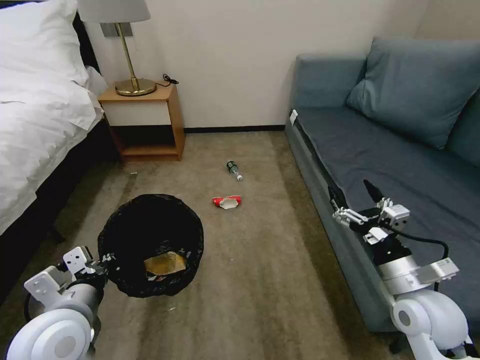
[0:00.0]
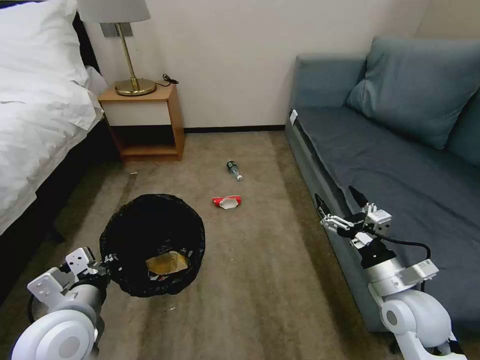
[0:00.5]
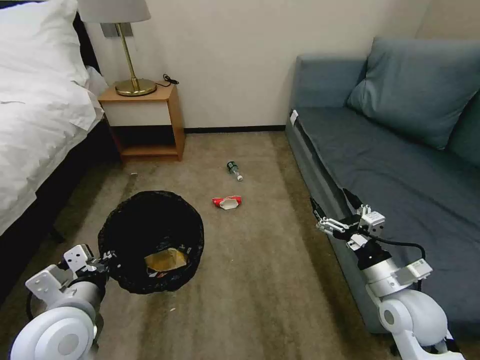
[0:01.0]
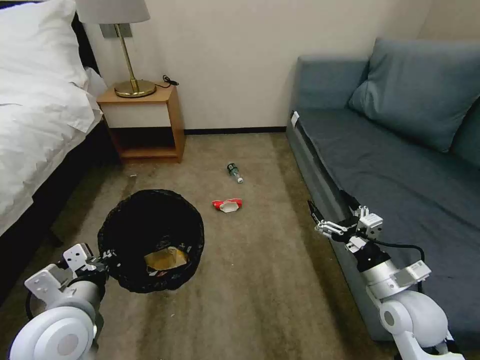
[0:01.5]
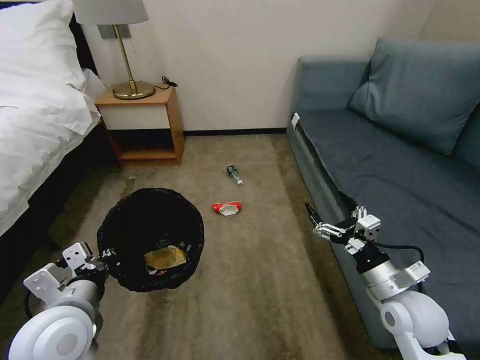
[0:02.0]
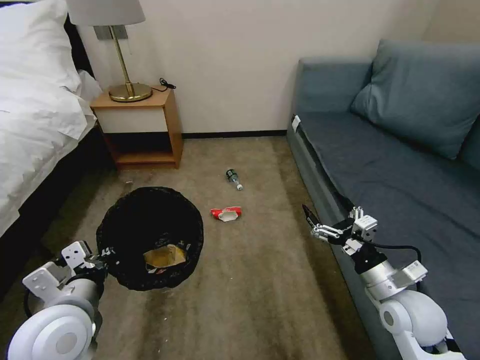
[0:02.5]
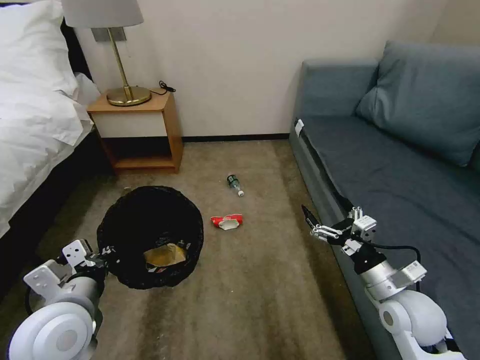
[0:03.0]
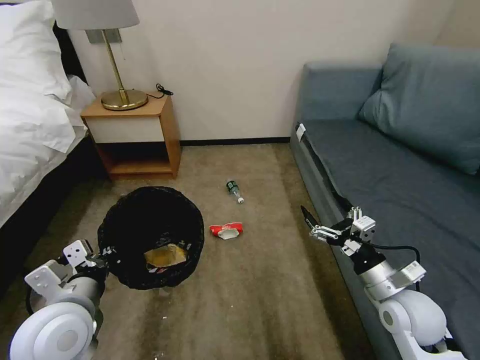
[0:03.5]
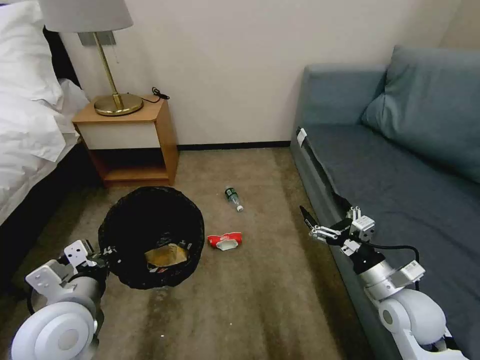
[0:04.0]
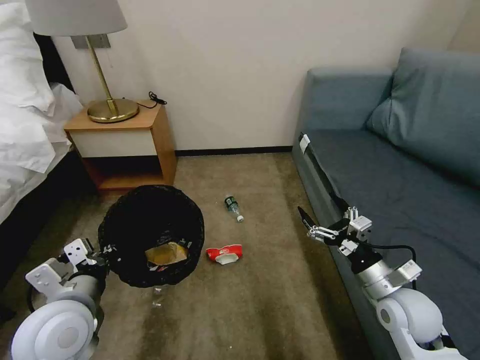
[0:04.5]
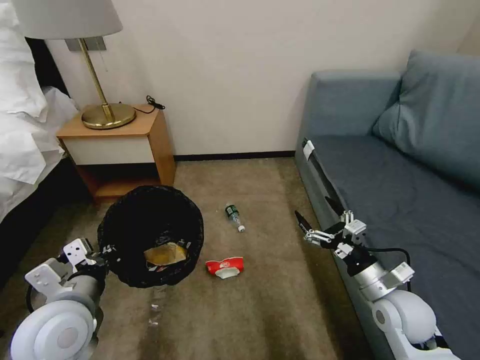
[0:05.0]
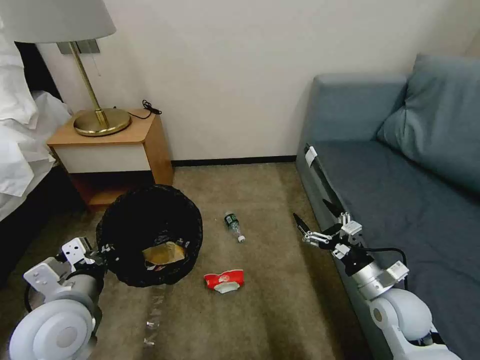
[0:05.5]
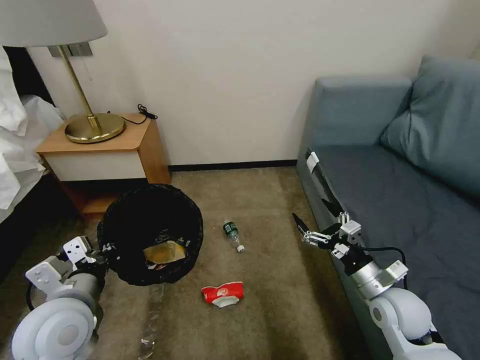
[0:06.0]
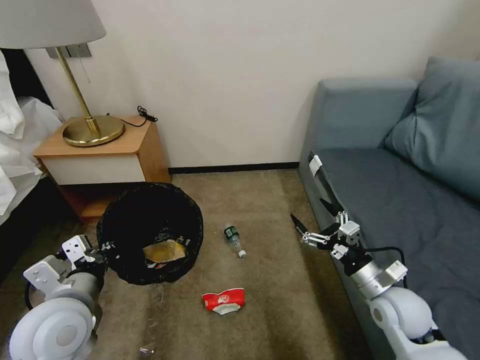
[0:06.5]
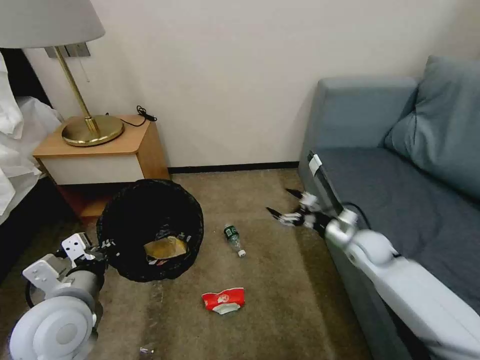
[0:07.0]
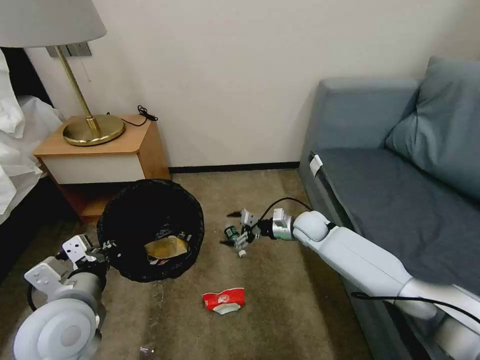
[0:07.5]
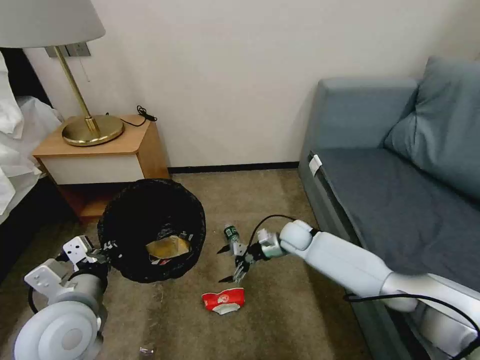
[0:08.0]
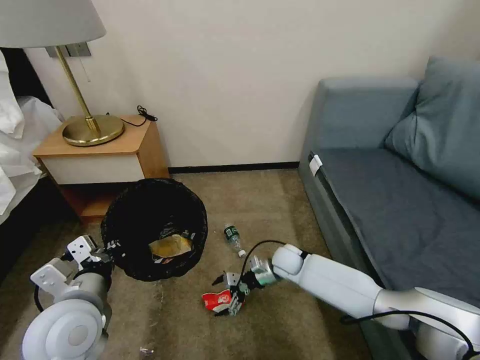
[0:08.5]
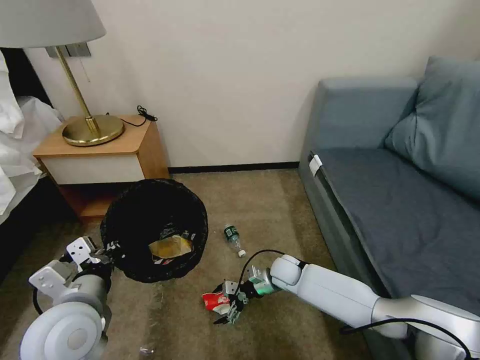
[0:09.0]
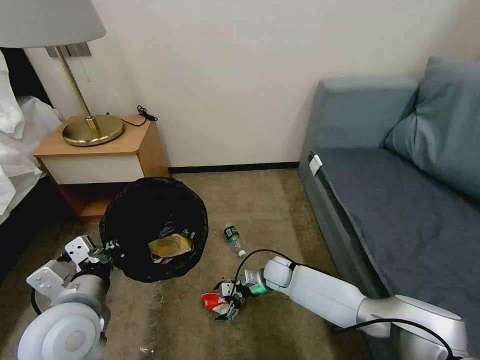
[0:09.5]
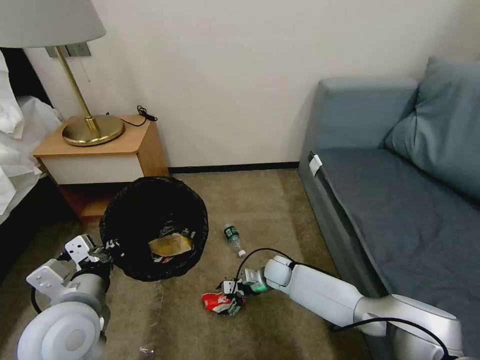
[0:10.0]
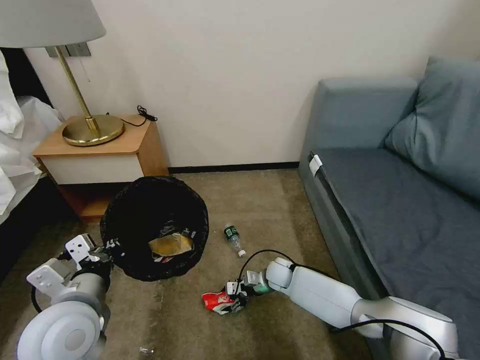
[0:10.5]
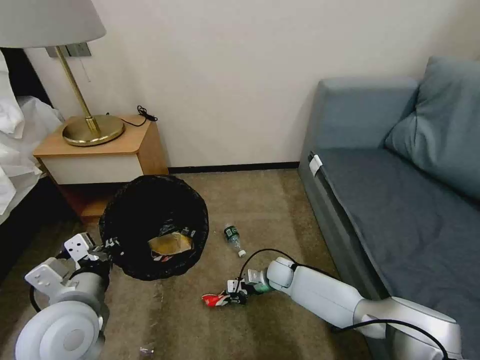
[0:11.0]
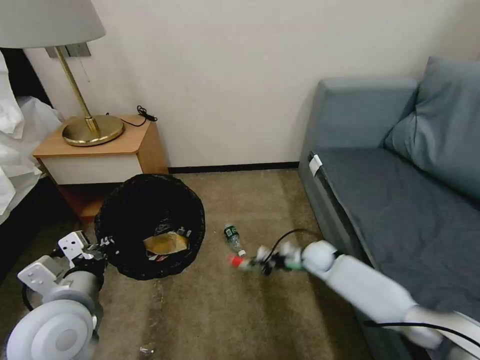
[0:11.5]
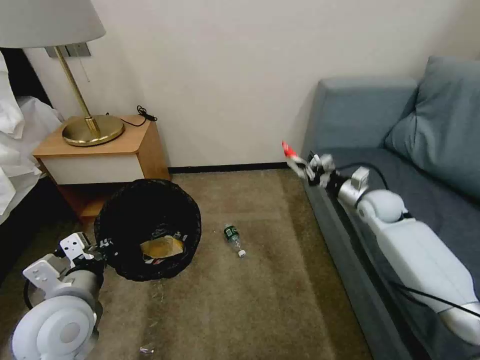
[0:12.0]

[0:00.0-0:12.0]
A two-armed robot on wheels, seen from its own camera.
Task of the whole recording: Pick up the trash bin, then pick up the garbage on the floor and place it into the trash bin.
0:00.0 to 0:02.0: There are only small adjustments of the grippers.
0:06.0 to 0:08.0: The right gripper travels forward and to the left by roughly 25 cm.
0:08.0 to 0:10.0: The right gripper heads downward and backward, covering approximately 10 cm.
0:10.0 to 0:12.0: The right gripper moves to the right and upward, about 30 cm, and closes its fingers.

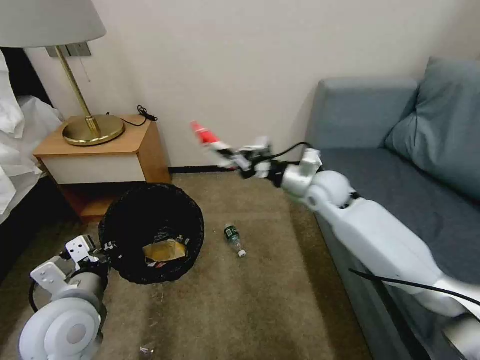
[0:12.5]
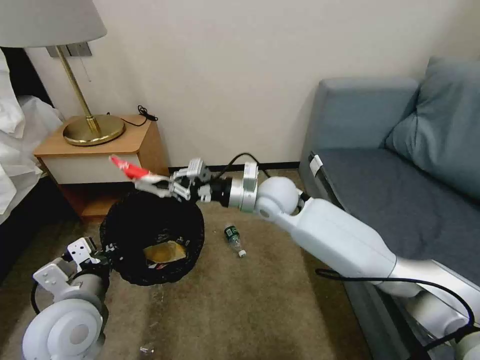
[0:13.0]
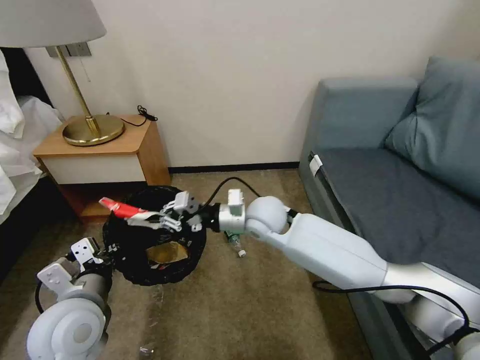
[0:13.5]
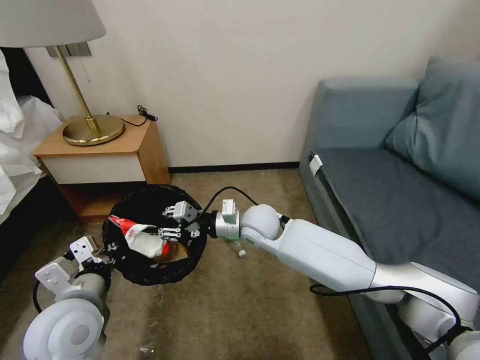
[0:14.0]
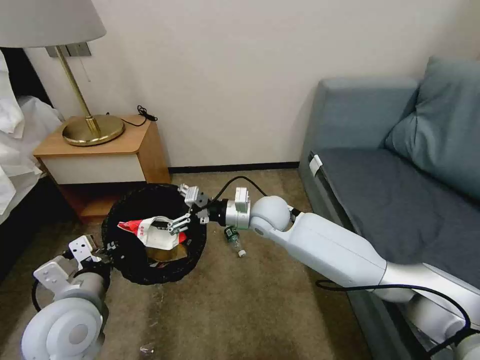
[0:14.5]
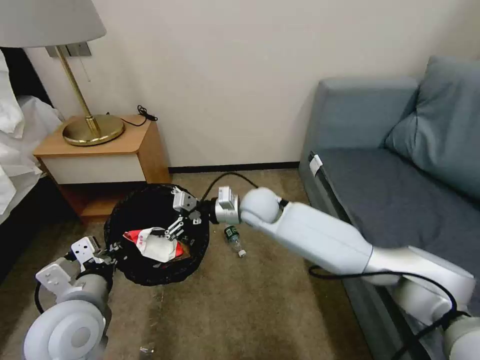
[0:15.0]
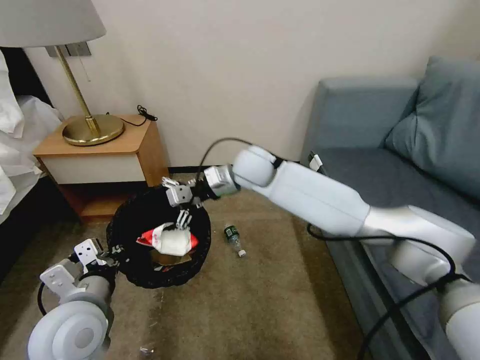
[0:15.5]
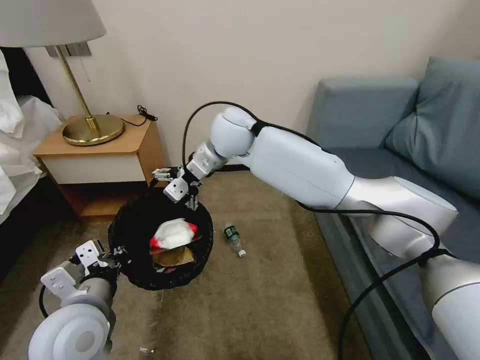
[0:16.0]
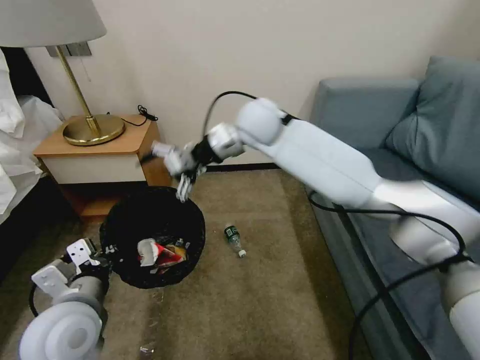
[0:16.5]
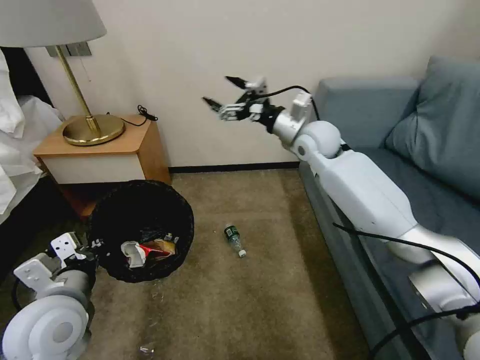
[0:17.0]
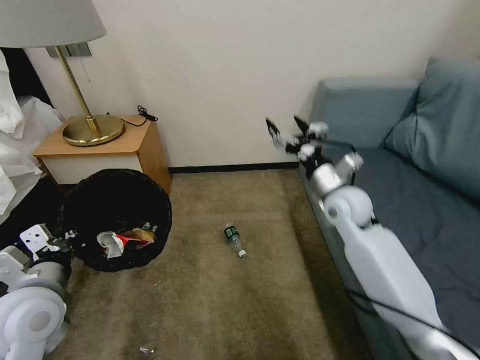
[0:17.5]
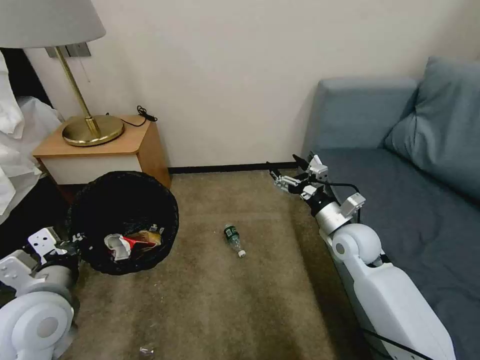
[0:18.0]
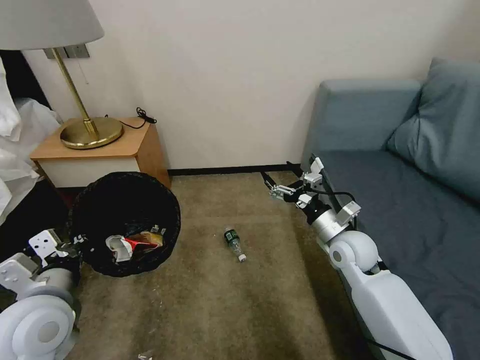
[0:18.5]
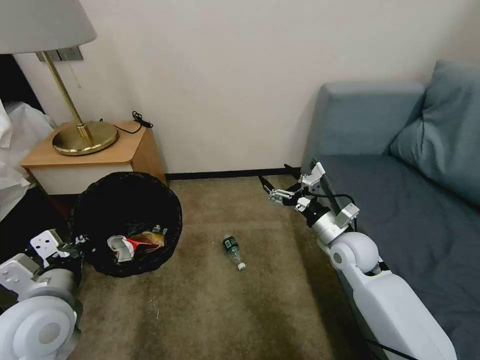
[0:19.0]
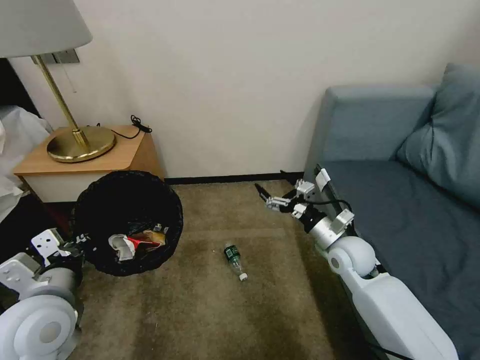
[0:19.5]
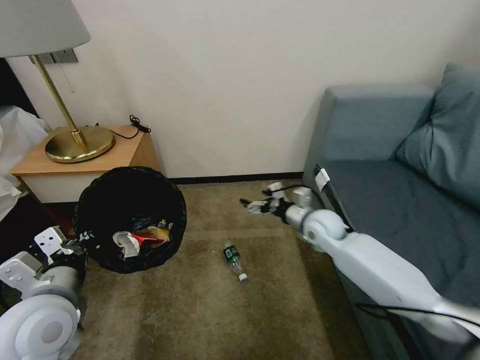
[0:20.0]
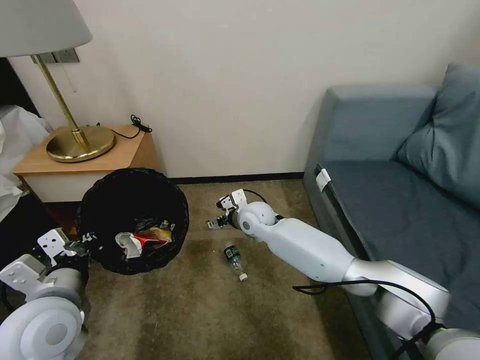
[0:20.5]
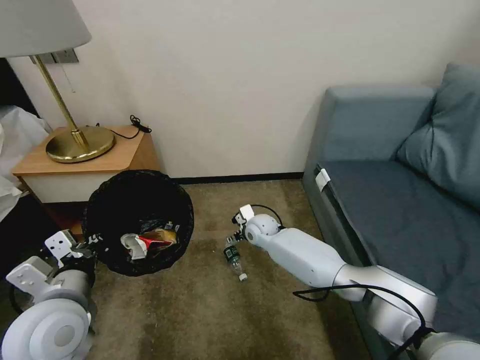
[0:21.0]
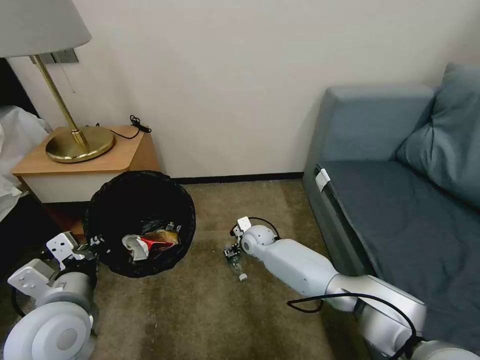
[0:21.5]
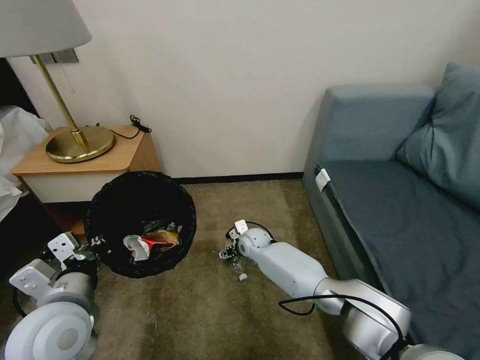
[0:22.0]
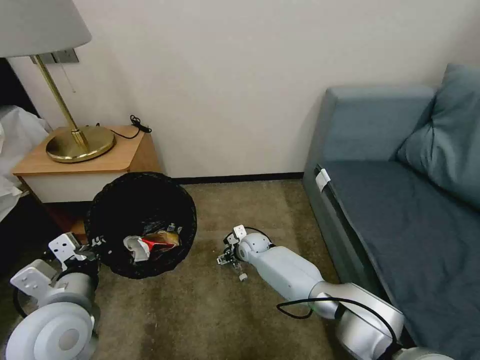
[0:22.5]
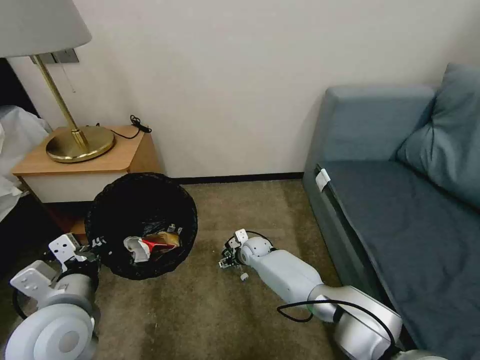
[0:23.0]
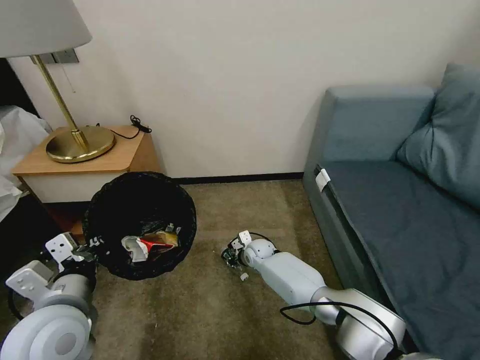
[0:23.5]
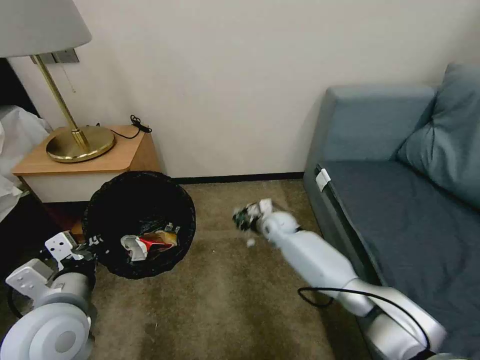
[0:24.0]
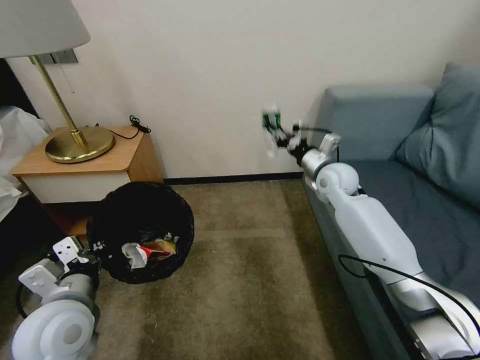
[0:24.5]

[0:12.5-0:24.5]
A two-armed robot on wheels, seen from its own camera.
Task of the whole recording: Pick up the trash bin, then pick up the garbage on the floor and place it into the trash bin.
0:12.5 to 0:14.5: The right gripper goes about 15 cm to the left, and opens.
0:14.5 to 0:16.5: The right gripper moves upward and forward, about 20 cm.
0:16.5 to 0:18.5: The right gripper is displaced downward, to the right and backward by approximately 35 cm.
0:18.5 to 0:20.5: The right gripper moves to the left and forward, approximately 25 cm.
0:20.5 to 0:22.5: The right gripper travels downward by approximately 15 cm.
0:22.5 to 0:24.5: The right gripper heads upward and to the right, covering some 35 cm, and closes up.

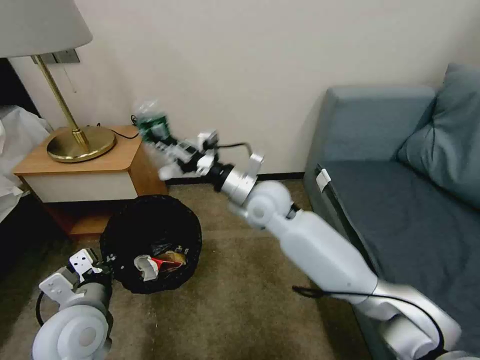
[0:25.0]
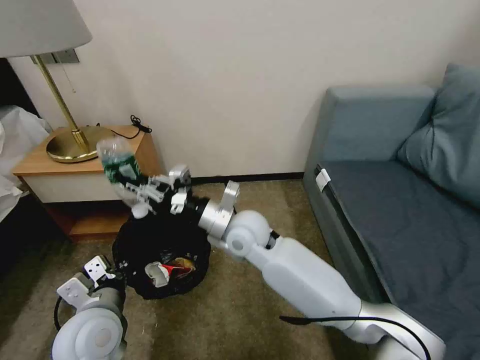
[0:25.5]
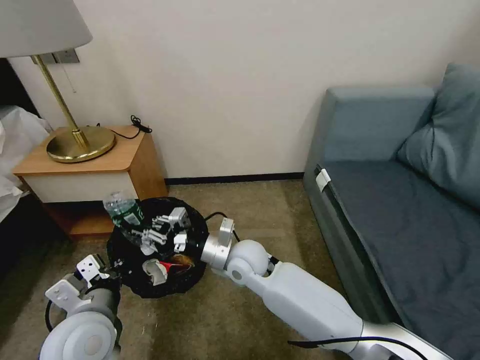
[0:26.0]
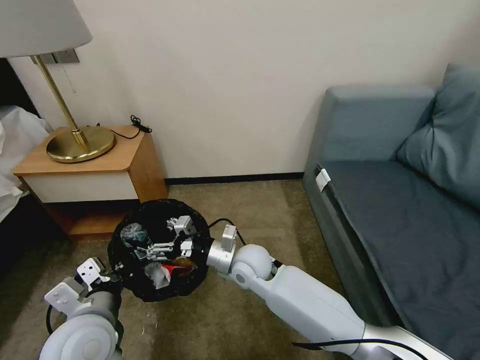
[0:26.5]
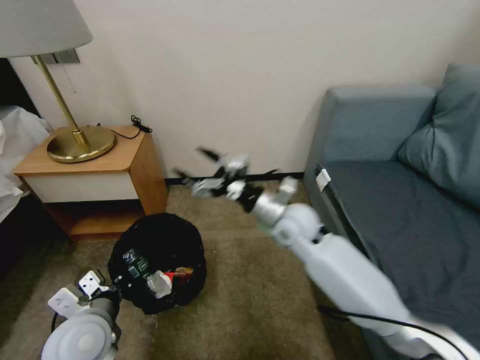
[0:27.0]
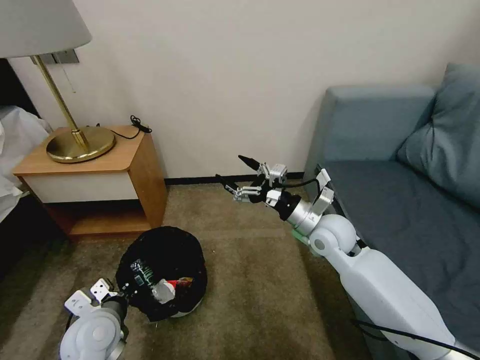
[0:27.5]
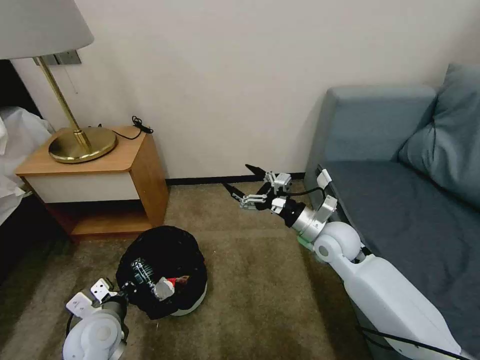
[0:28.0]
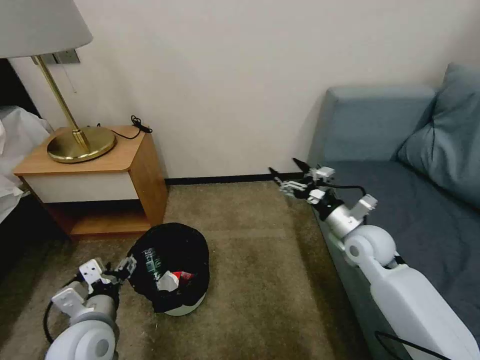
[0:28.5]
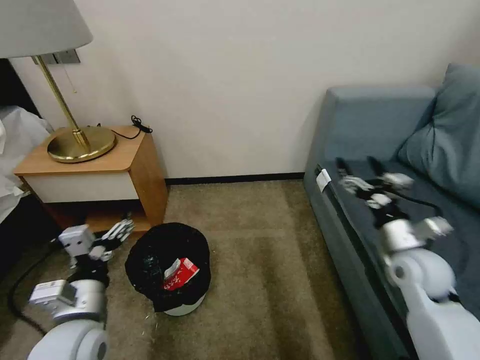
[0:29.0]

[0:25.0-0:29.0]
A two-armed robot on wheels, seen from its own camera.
Task of the whole recording: Pick up the trash bin, then pick up the garbage on the floor and place it into the trash bin.
0:25.0 to 0:27.0: The right gripper shifts some 10 cm to the right and downward, and opens its fingers.
0:27.0 to 0:29.0: The left gripper travels downward and back again, some 10 cm each way, and opens up. The right gripper goes approximately 25 cm to the right.
